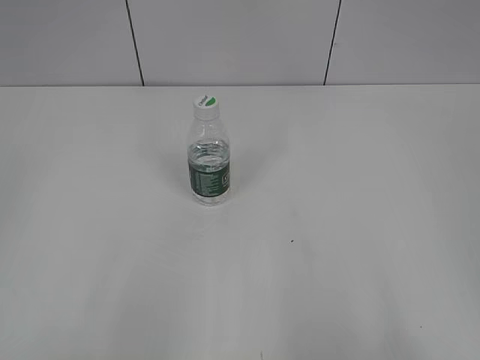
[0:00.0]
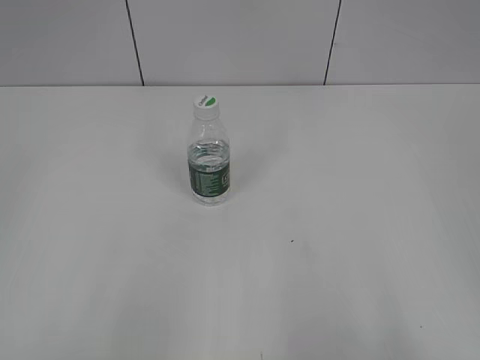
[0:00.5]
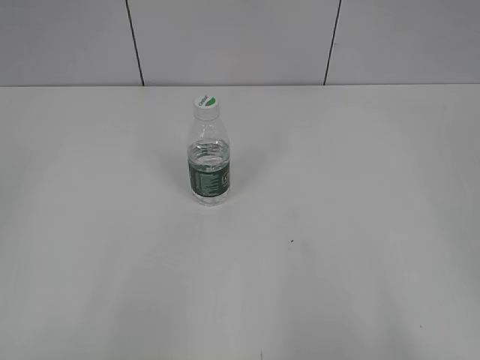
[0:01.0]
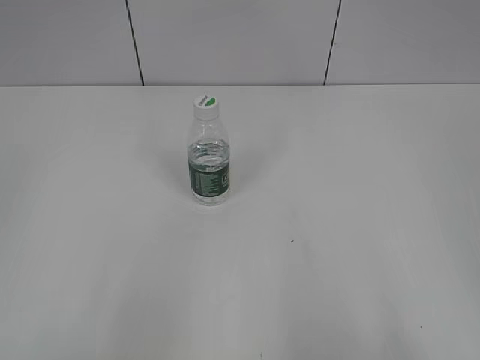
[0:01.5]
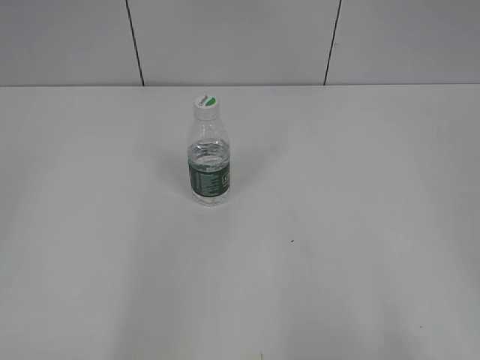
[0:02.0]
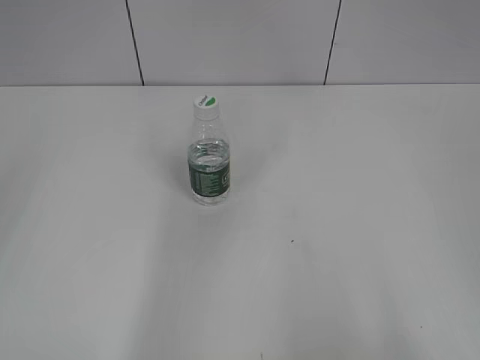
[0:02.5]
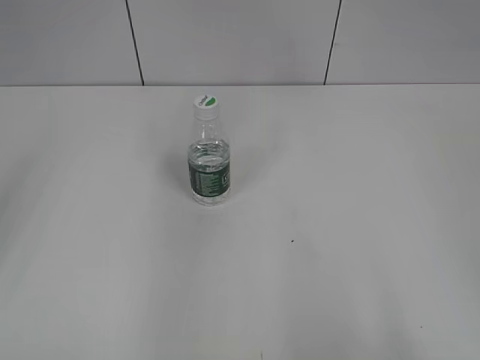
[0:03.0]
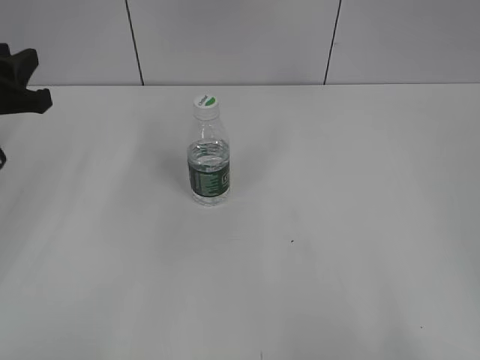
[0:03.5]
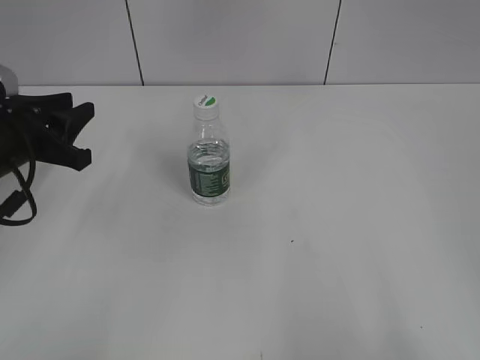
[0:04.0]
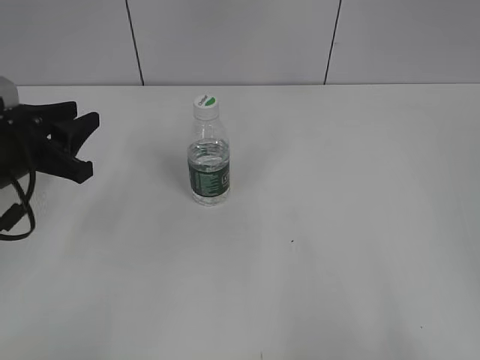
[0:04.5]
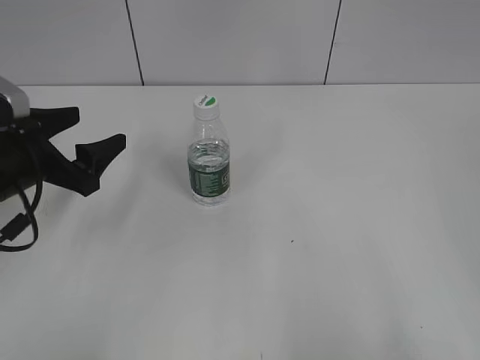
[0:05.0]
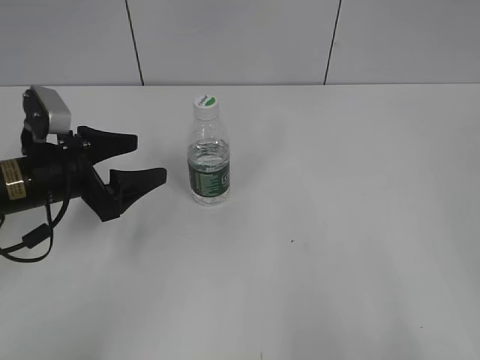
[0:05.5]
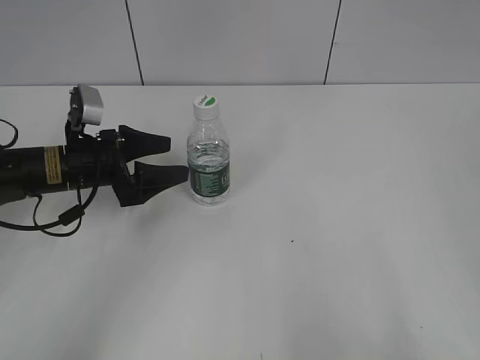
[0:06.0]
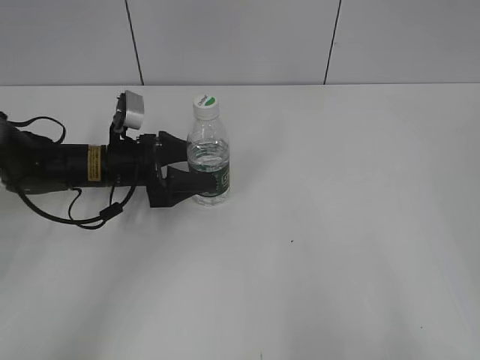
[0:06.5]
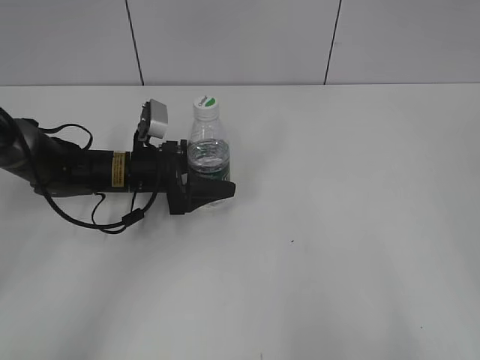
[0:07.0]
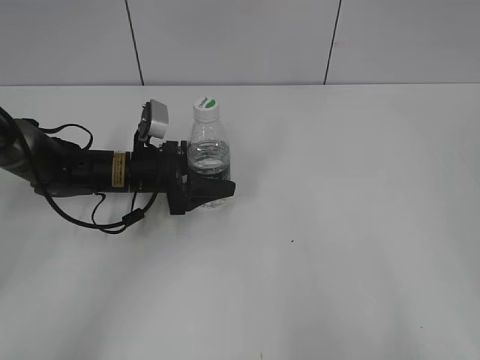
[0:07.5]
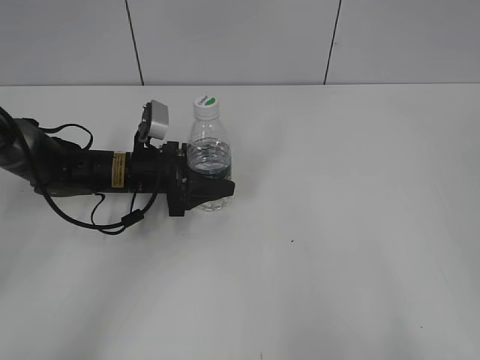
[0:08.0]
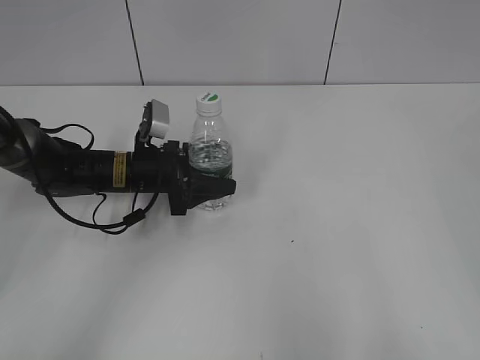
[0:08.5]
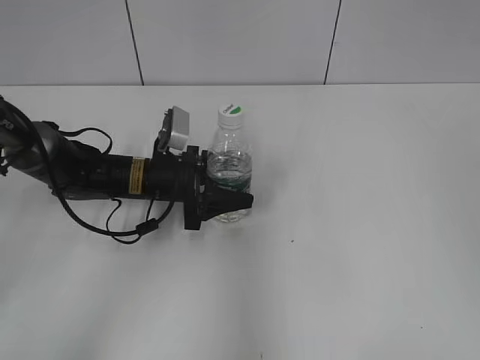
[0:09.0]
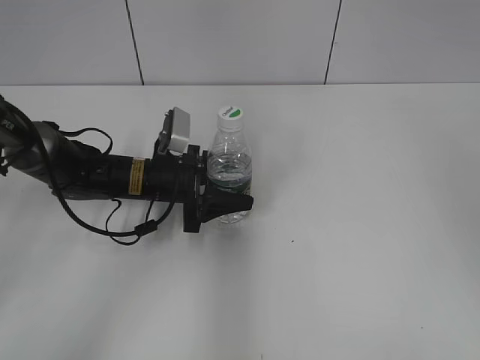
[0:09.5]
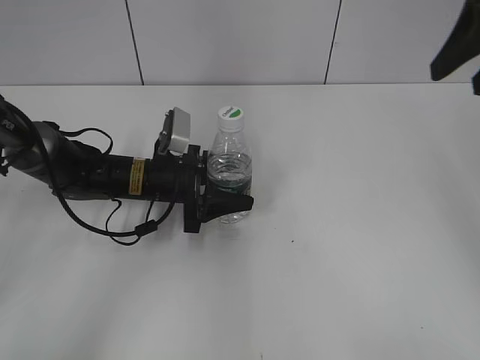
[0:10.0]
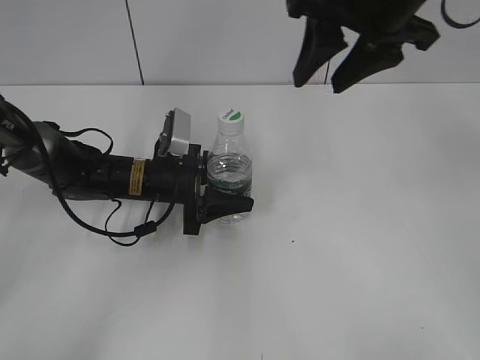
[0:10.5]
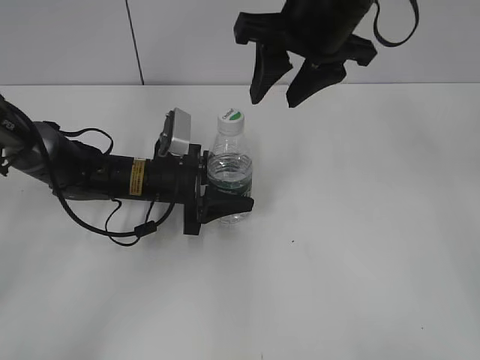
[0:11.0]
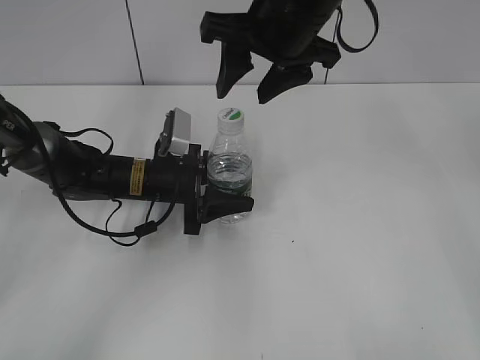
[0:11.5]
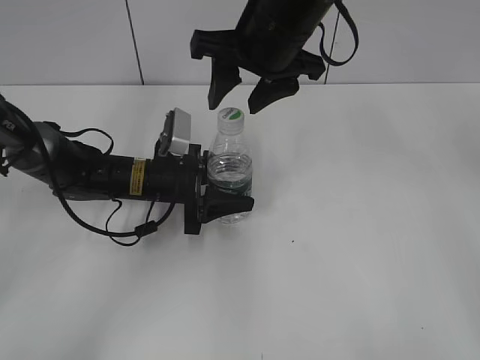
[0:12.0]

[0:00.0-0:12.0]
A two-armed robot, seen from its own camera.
Step, 0:00.0 to 0:07.5: Grasp the bottle and move it to the center of the table with the left gripper.
0:02.0 to 0:04.0: The left gripper moves forward and downward, some 35 cm.
0:04.0 to 0:06.0: The left gripper travels downward and to the right by about 10 cm, and opens its fingers.
0:06.0 to 0:08.0: The left gripper heads to the right, covering about 5 cm, and closes up.
0:08.0 to 0:10.0: The right gripper goes approximately 30 cm forward.
0:10.0 to 0:12.0: The right gripper is displaced to the left and downward by approximately 20 cm.

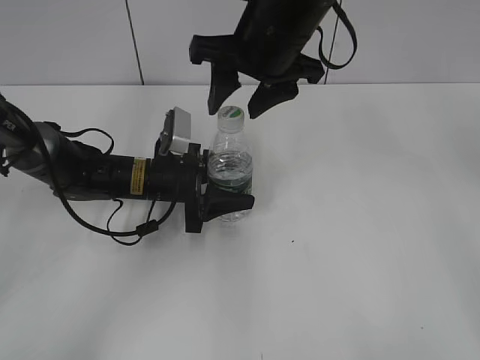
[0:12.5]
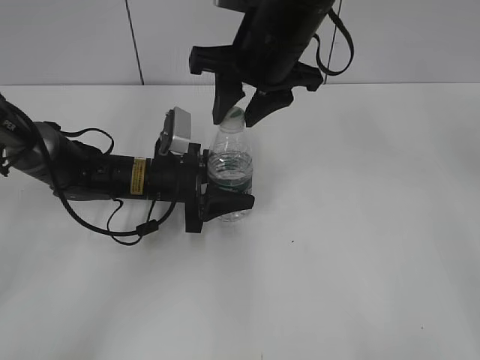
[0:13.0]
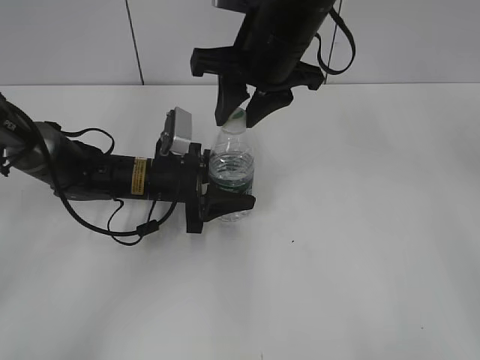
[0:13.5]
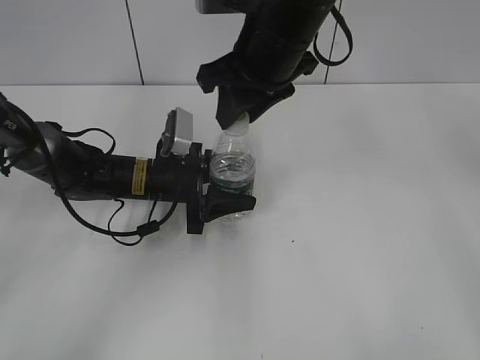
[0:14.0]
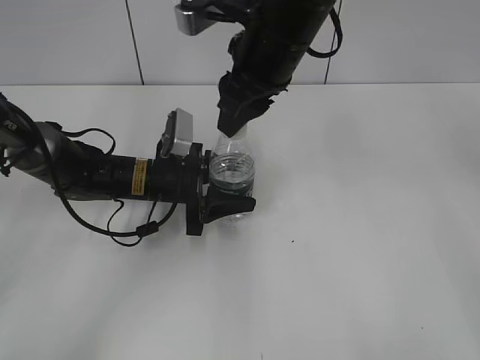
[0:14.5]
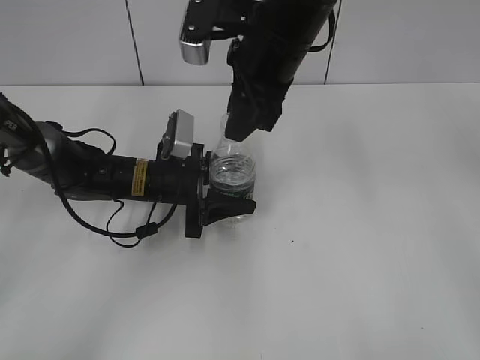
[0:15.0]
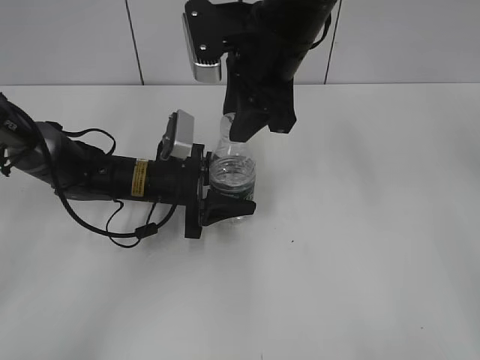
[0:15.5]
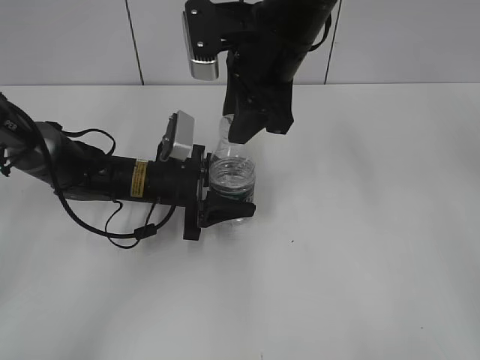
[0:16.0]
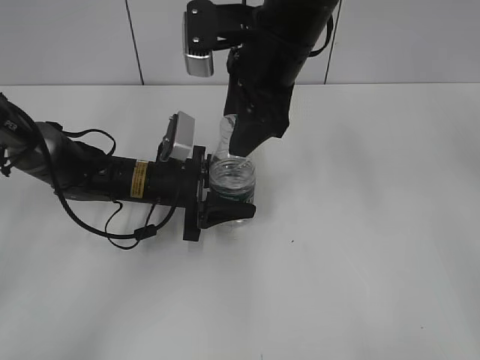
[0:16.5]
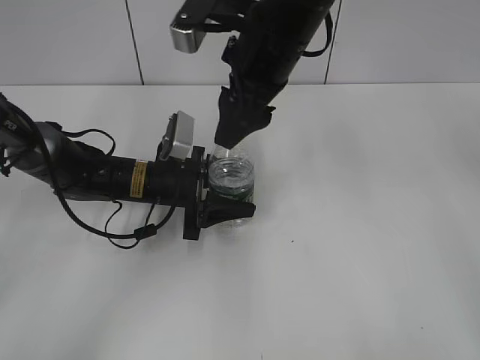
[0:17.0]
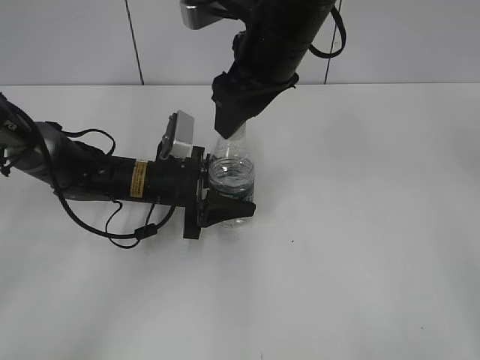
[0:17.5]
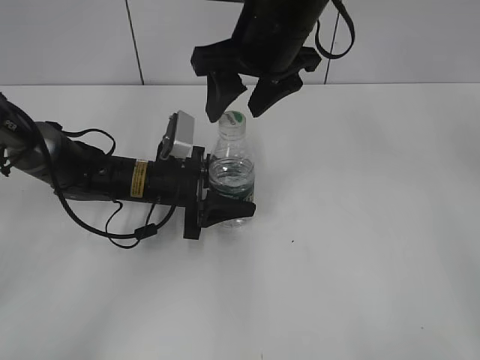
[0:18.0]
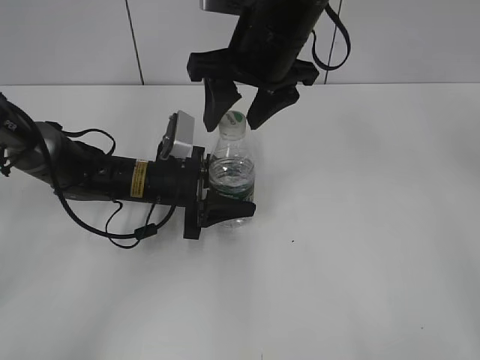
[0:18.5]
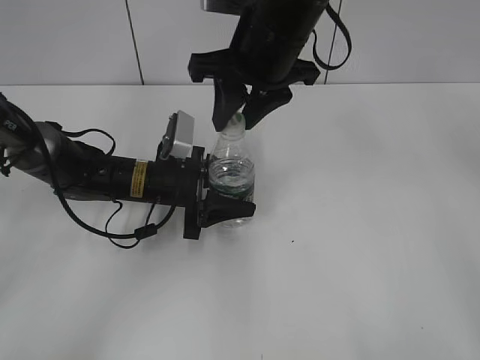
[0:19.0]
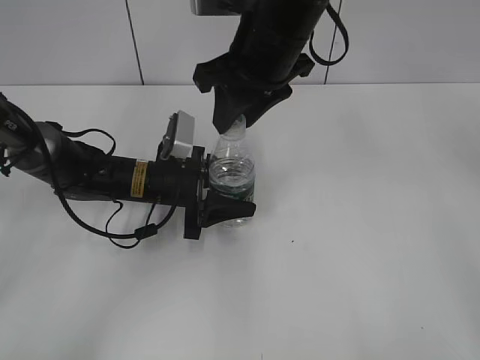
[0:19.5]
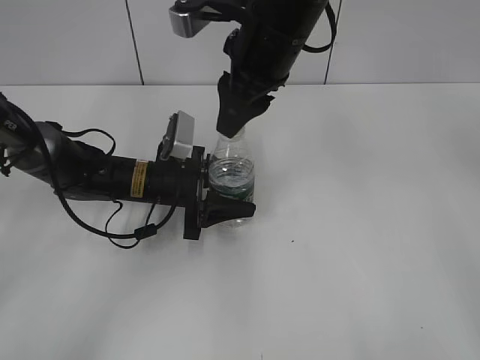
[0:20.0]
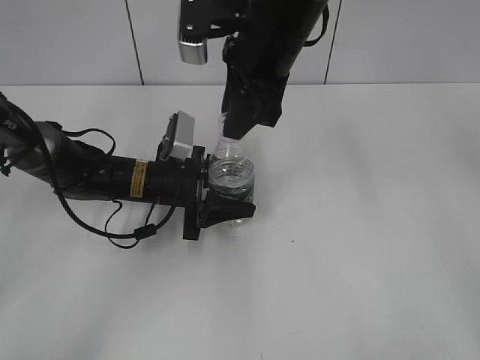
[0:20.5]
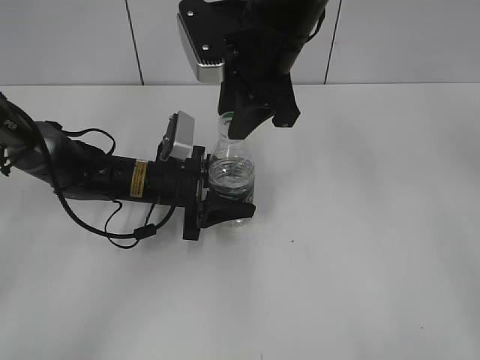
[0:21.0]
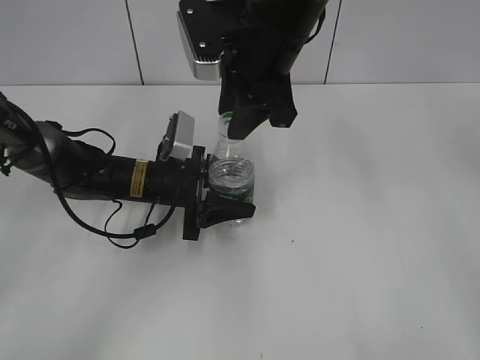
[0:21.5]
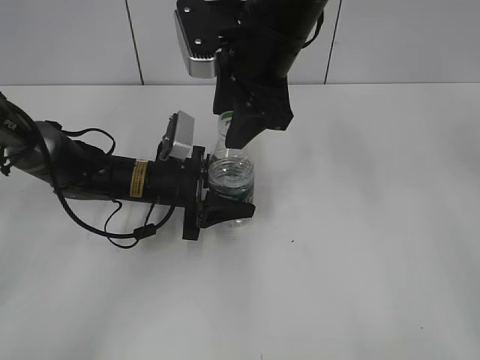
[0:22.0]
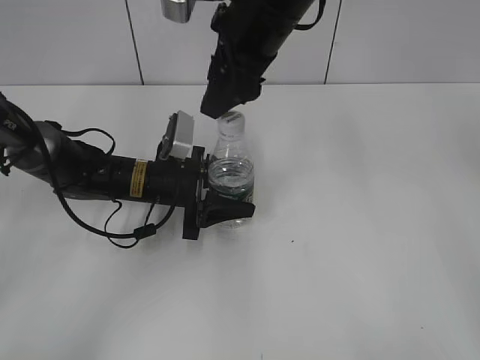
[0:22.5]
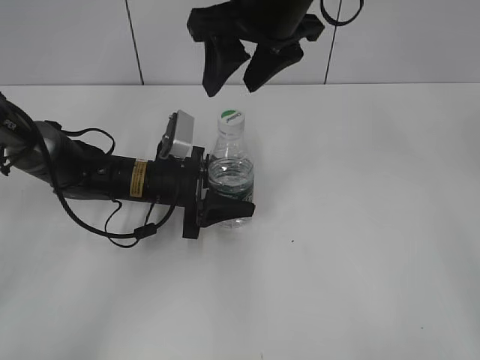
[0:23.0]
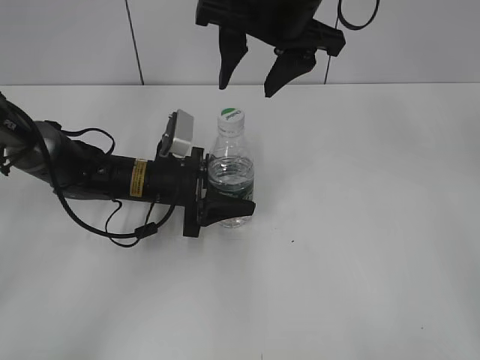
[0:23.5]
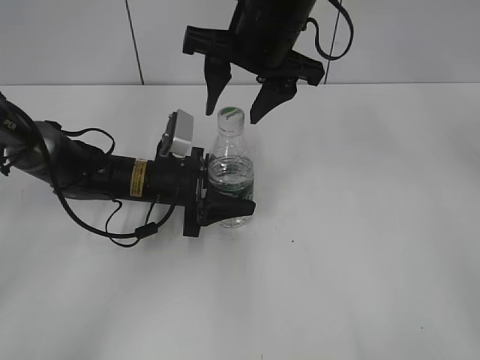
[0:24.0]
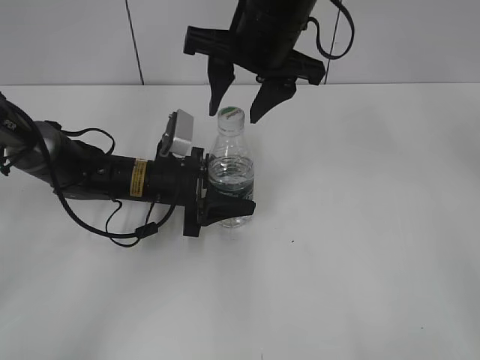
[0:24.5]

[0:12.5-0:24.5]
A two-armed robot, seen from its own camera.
0:12.5 to 0:14.5: The right gripper closes.
0:14.5 to 0:16.5: The right gripper opens its fingers.
0:18.5 to 0:20.5: The right gripper closes up.
0:20.5 to 0:22.5: The right gripper opens up.

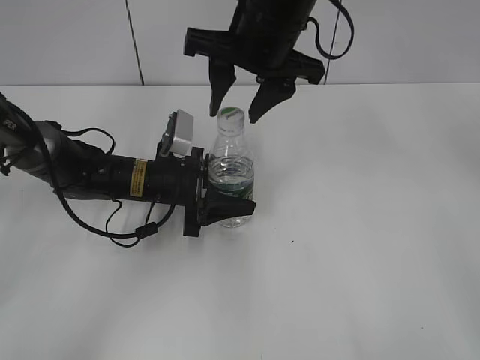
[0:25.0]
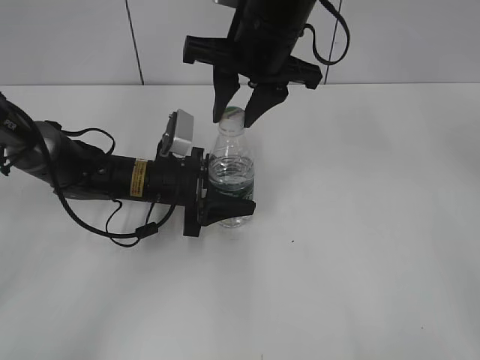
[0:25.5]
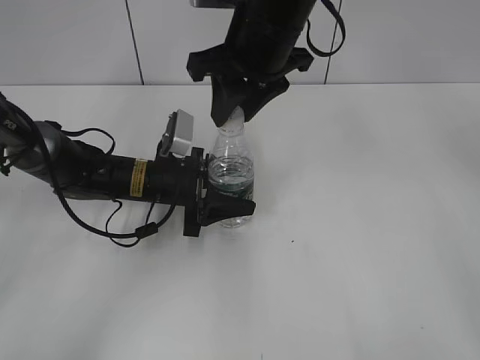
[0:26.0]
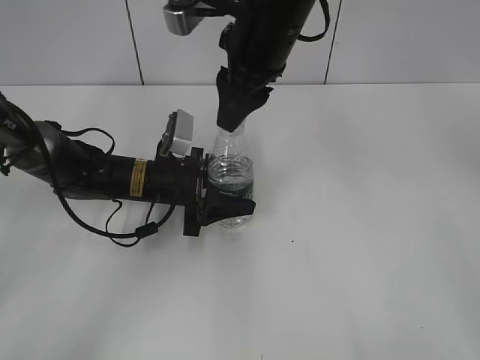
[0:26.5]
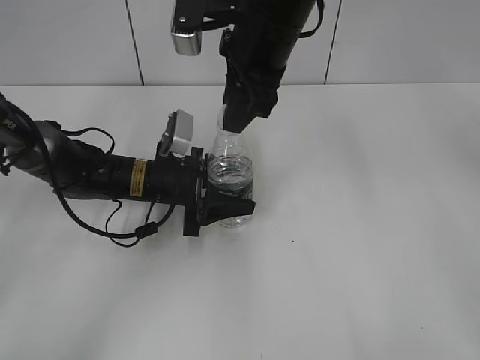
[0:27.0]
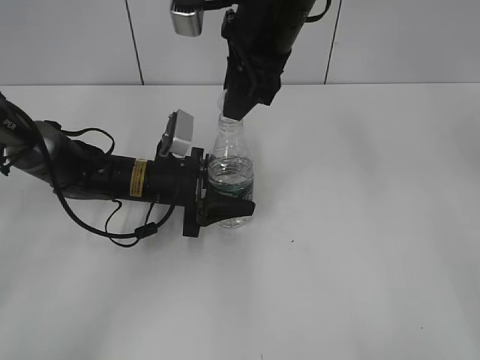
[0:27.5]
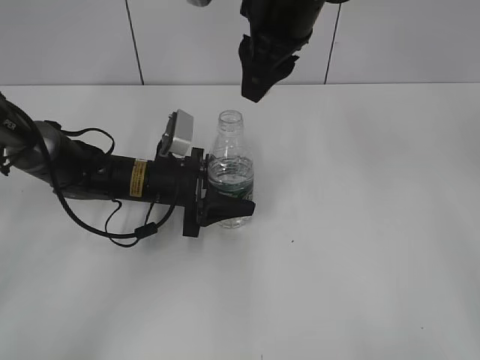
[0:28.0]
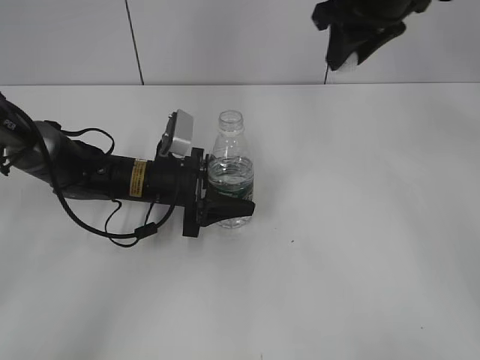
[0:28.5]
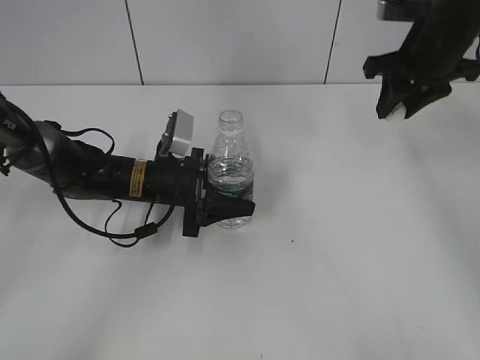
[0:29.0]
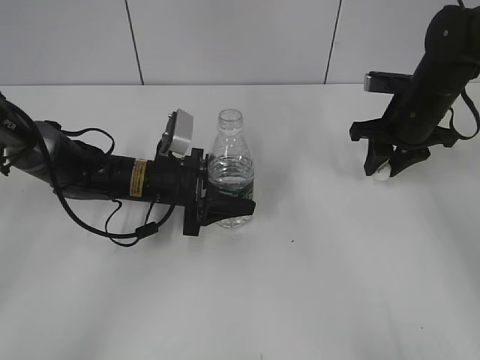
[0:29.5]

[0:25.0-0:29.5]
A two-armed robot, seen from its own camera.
Step, 0:25.0 to 0:27.5: Unscrew the bottle cap with the right gripper while holding the bottle with the left gripper.
0:25.0 to 0:27.0: The right gripper closes its fingers.
0:27.0 to 0:29.5: The right gripper goes about 25 cm to the right and downward.
